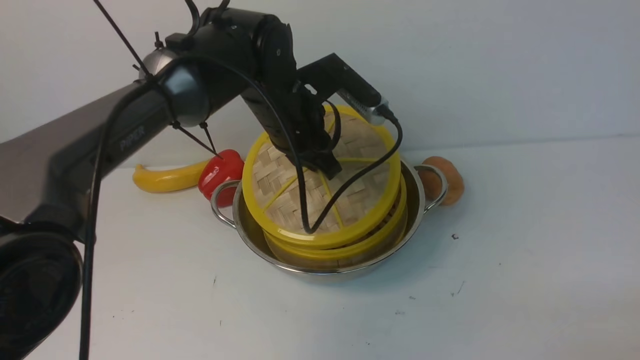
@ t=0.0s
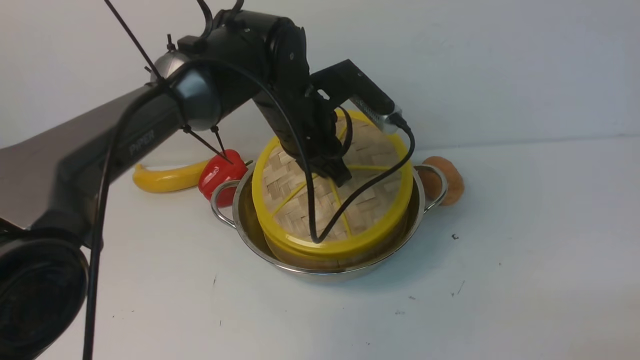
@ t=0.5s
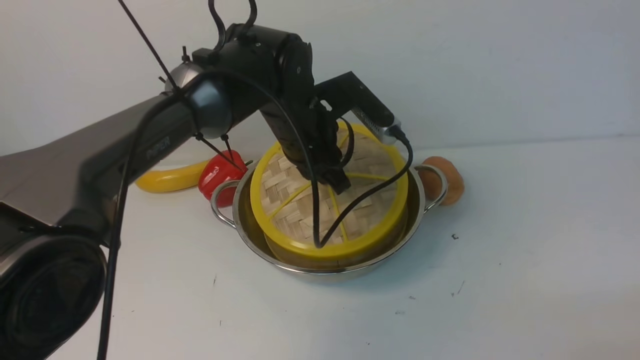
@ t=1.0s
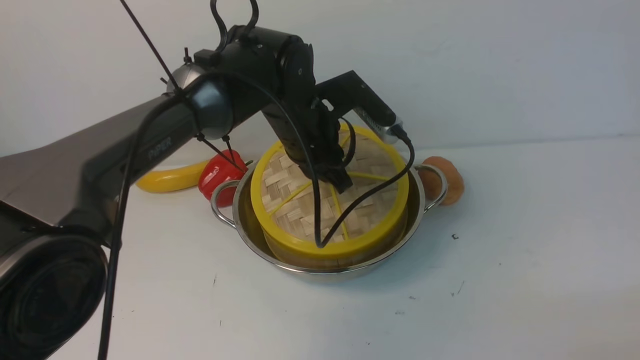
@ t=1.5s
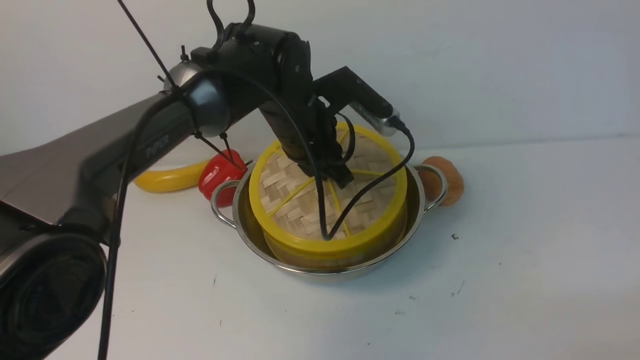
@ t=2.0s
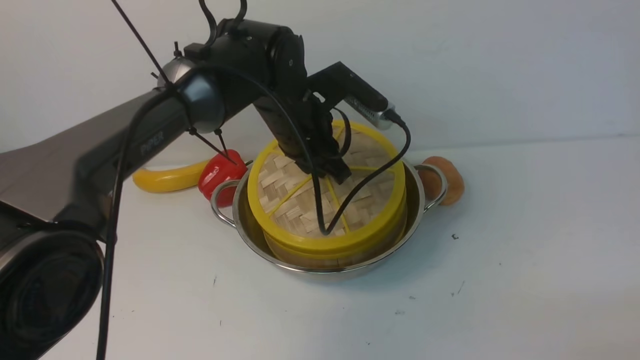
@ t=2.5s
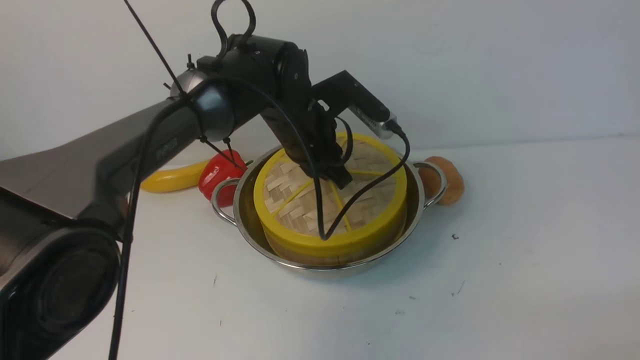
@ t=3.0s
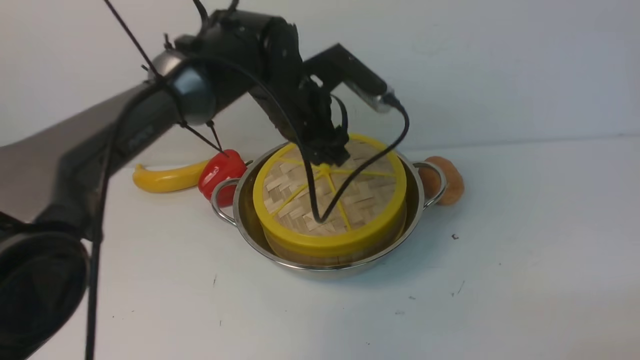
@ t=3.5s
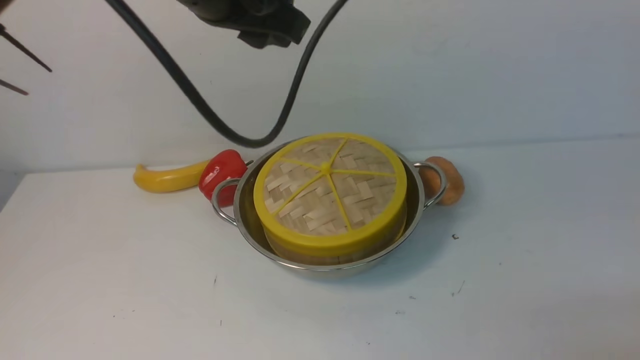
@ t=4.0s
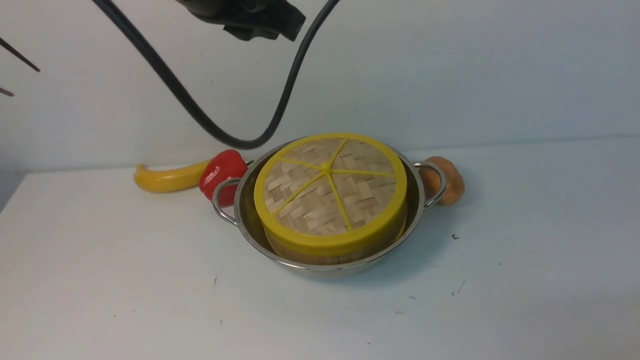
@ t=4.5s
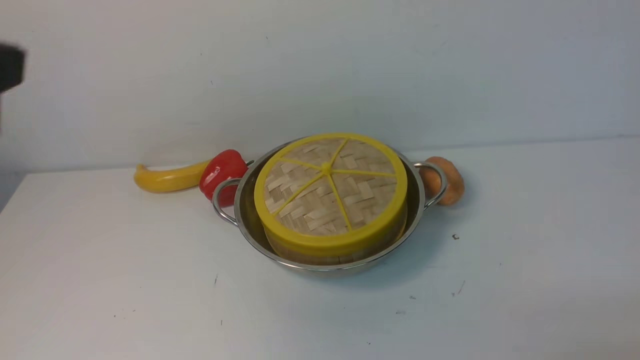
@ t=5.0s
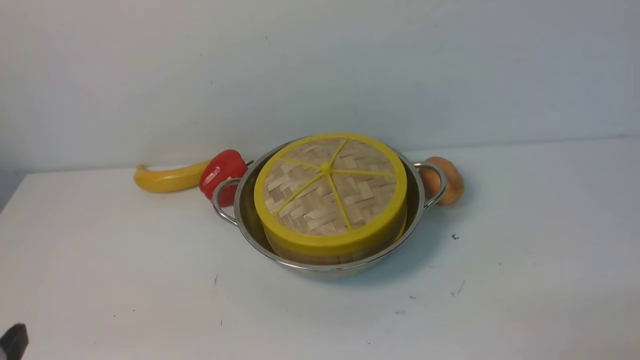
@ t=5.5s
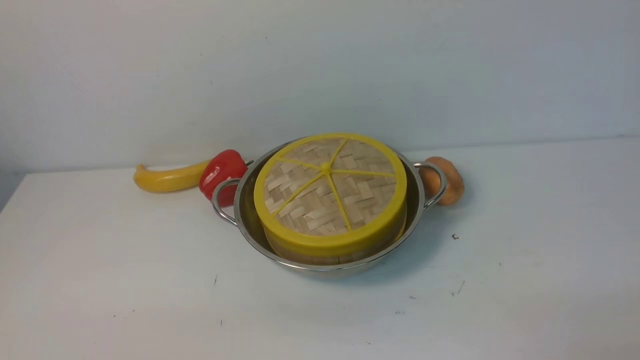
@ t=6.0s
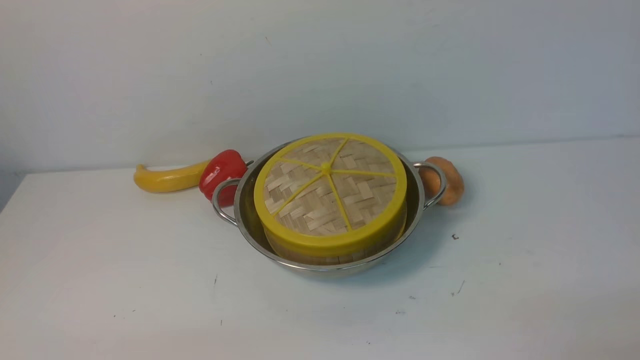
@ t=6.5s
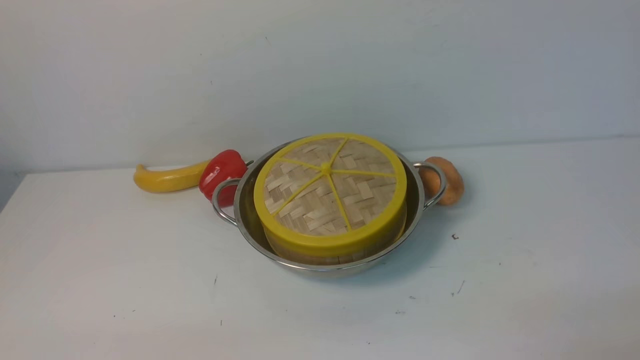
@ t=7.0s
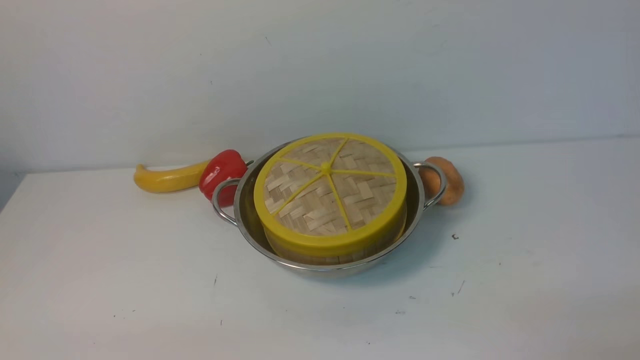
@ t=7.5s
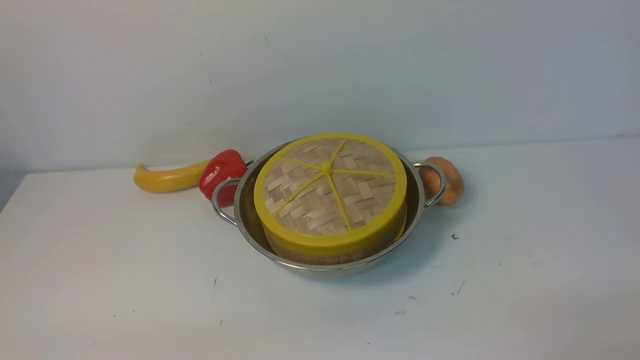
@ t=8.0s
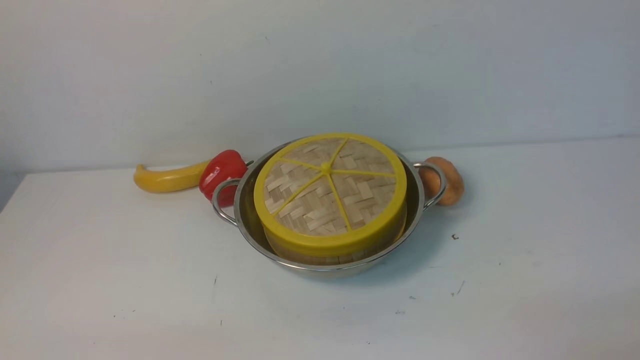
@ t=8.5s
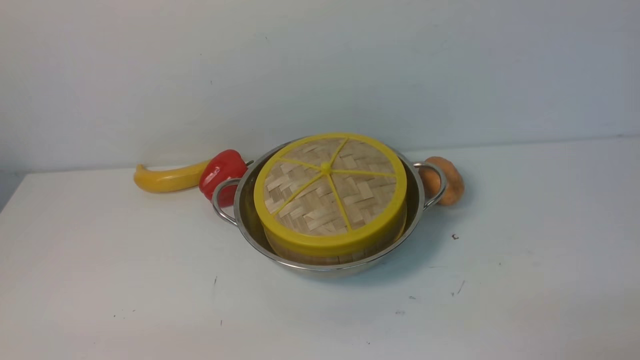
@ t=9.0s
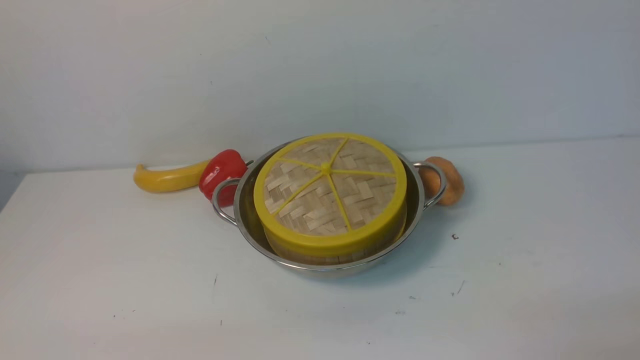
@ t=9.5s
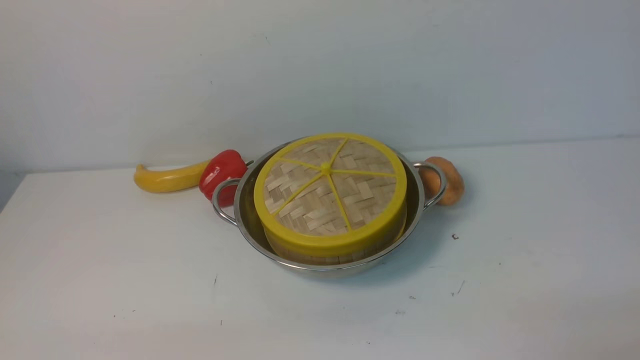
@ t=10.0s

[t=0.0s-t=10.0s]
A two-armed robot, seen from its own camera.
Task of the whole recording: place the steamer in the pot on the white table, and put the lid on the steamer.
Step, t=0.0s to t=4.0s: use the left arm to place the steamer lid on the steamer.
t=0.0s to t=2.0s: The grippers stay close to where they were, moving slightly.
t=2.0s to t=4.0s: The left gripper moves upward and backward, roughly 20 cm, and opens its fingers.
t=4.0s to t=6.0s: The left gripper travels backward, downward and to the left by about 40 cm.
t=8.0s to t=10.0s: The two grippers keep their place.

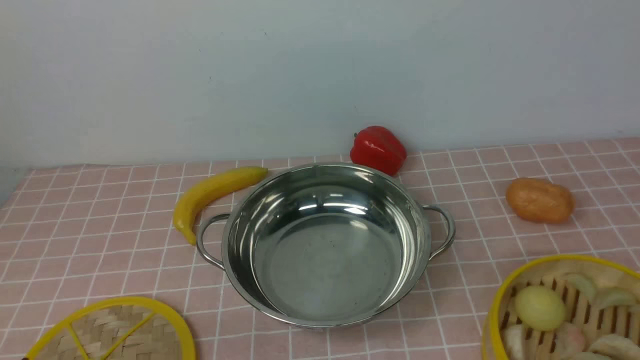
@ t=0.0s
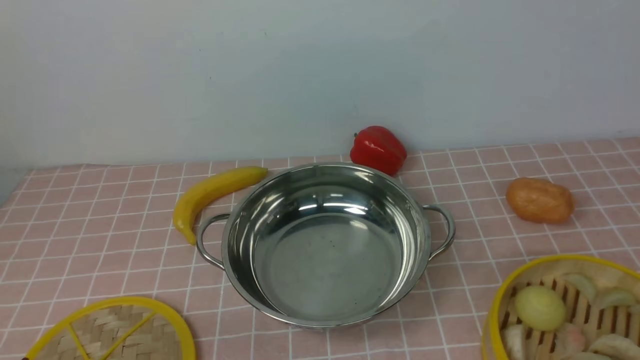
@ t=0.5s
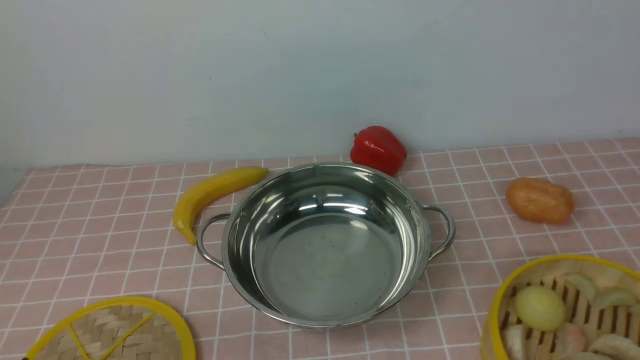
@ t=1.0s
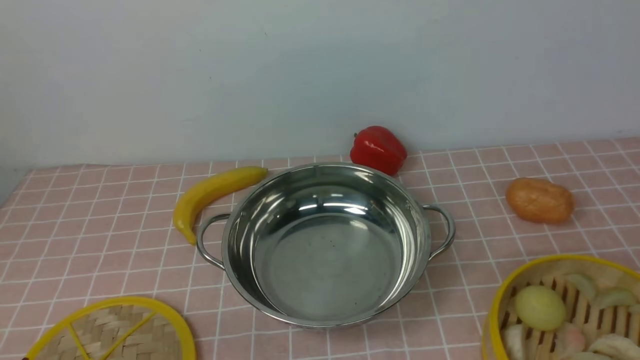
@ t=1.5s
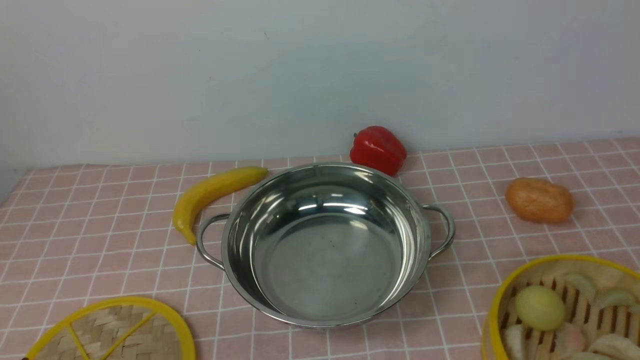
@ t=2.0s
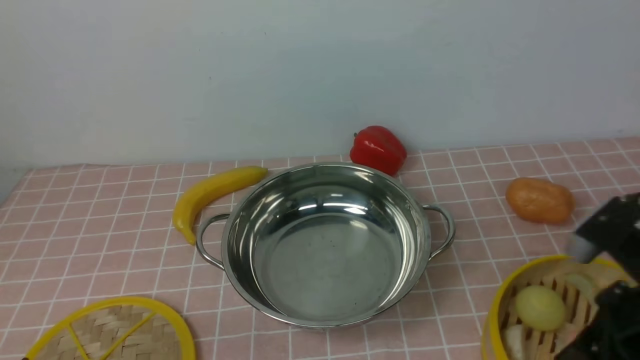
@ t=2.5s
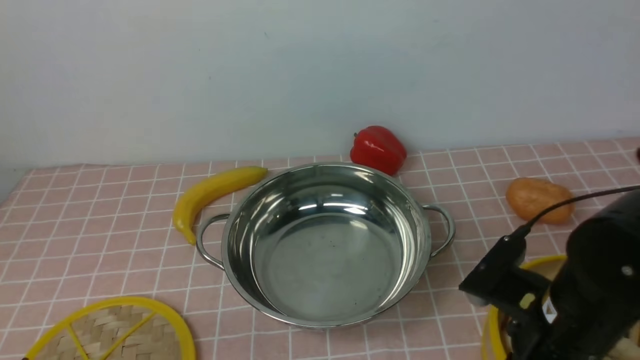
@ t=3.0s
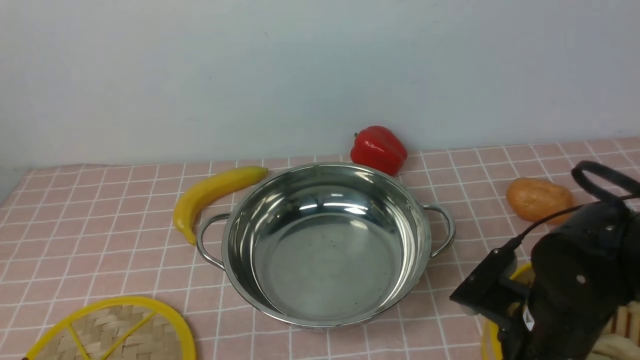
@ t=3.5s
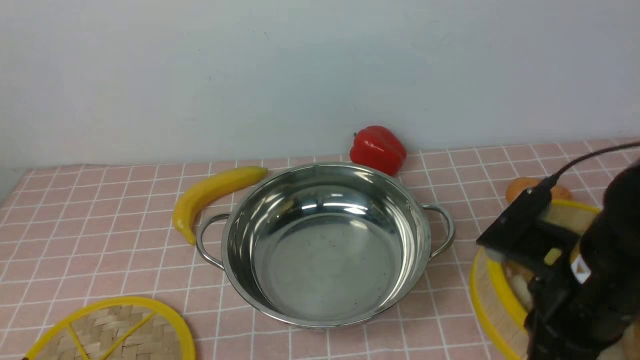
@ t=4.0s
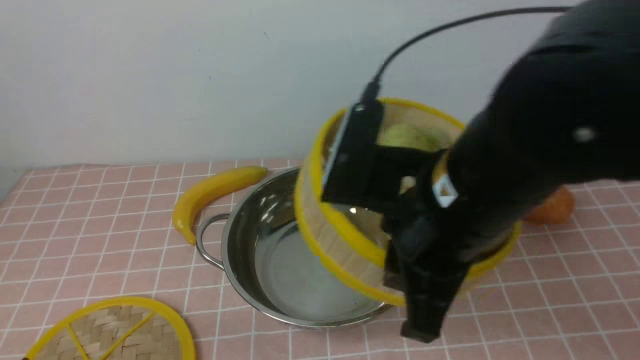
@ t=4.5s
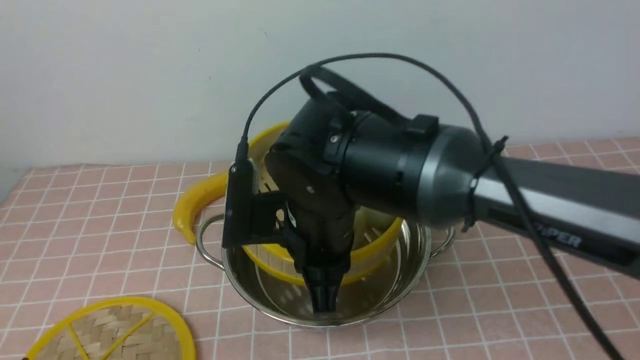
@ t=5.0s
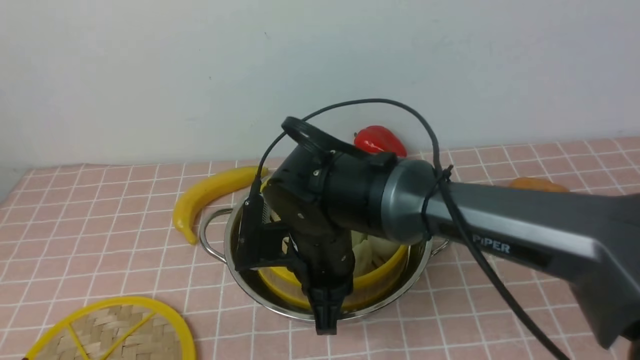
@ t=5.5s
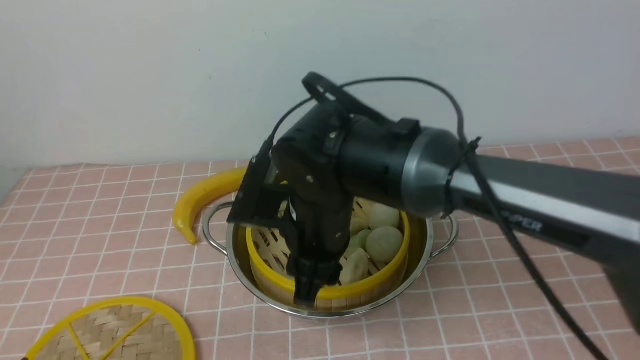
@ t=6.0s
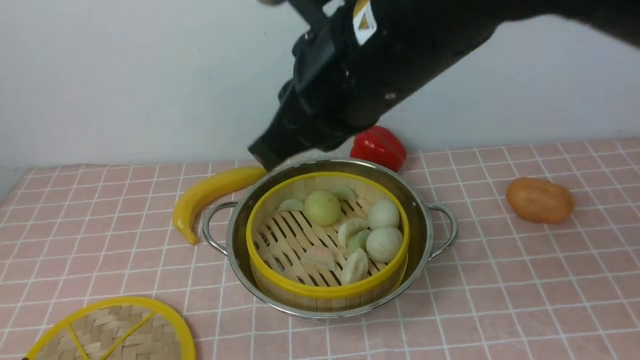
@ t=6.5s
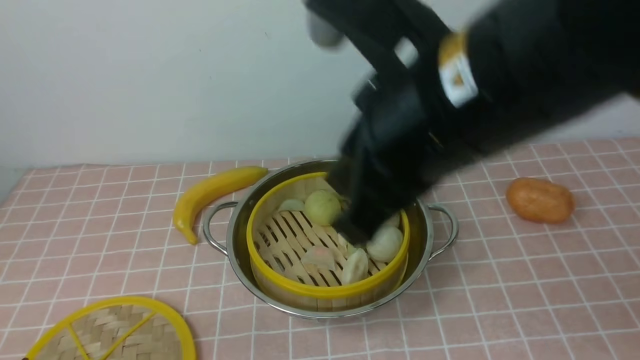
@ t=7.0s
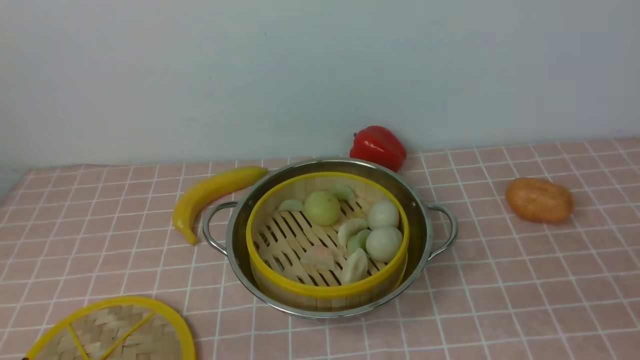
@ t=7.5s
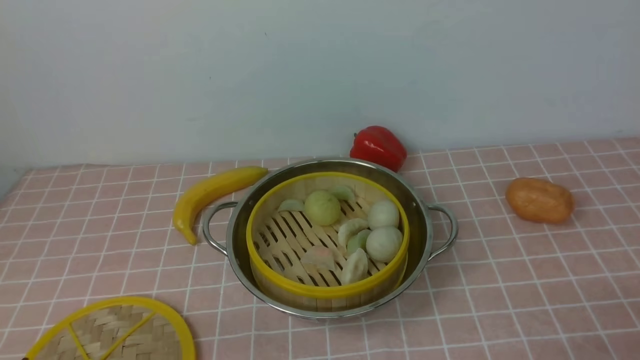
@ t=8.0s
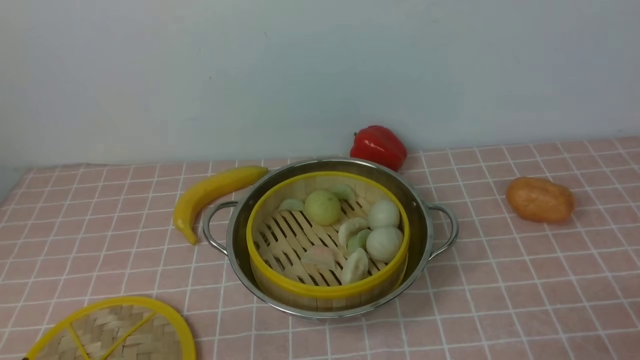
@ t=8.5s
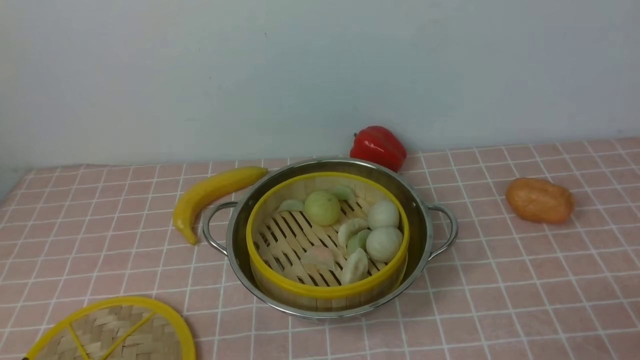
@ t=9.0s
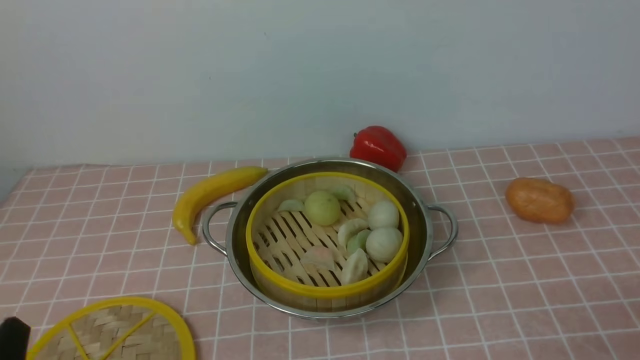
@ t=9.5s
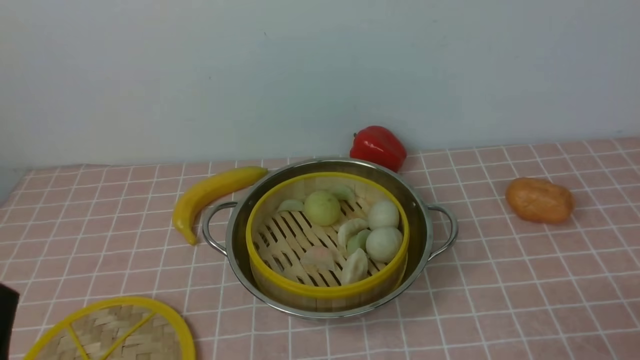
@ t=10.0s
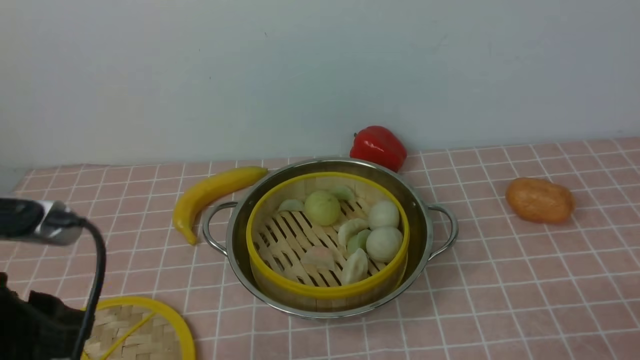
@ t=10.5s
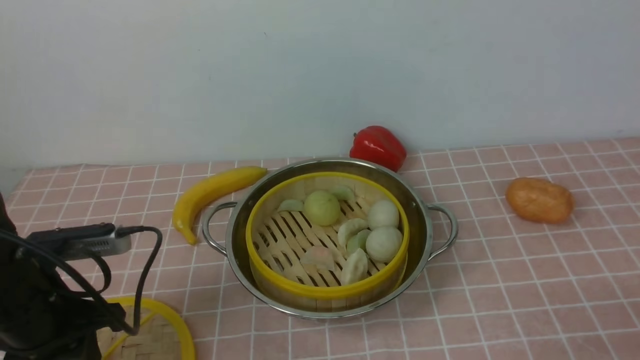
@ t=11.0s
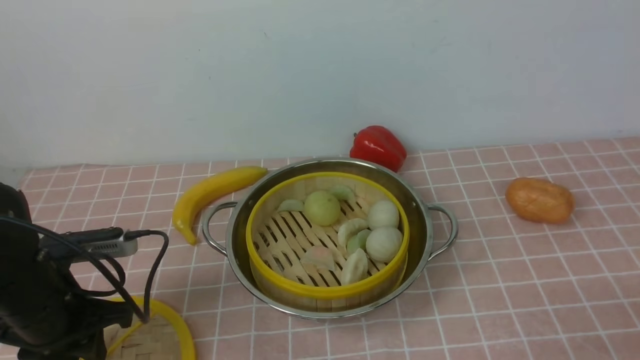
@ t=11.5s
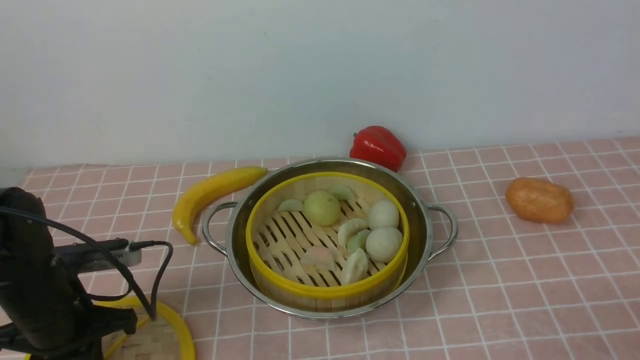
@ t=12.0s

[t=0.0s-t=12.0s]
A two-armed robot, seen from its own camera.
Task of the whole recording: place the steamer in the pot on the pink tablecloth, and put the lid on the steamer.
Step, t=0.0s to t=3.5s: use the right arm to lift the steamer closest to it.
Step, t=4.0s to t=6.0s: use the right arm to put the steamer into the iron steamer pot in the middle.
t=2.0s to t=4.0s: The right gripper goes about 15 cm forward and to the left, and closes up.
t=4.0s to t=6.0s: The right gripper shifts roughly 20 cm to the left and forward, and opens up.
t=6.0s to t=8.0s: The right gripper shifts roughly 40 cm to the right and backward, and closes up.
t=10.0s to t=12.0s: The left gripper heads forward and downward, covering about 20 cm.
